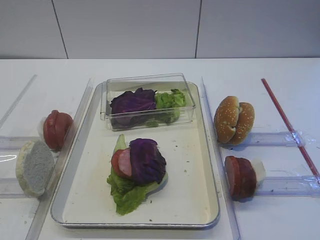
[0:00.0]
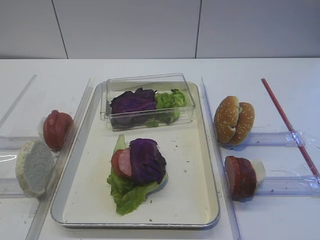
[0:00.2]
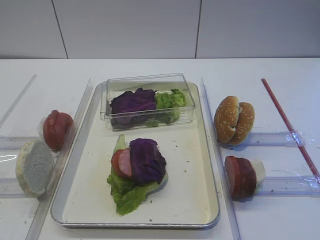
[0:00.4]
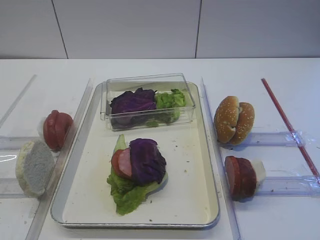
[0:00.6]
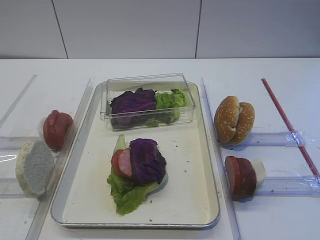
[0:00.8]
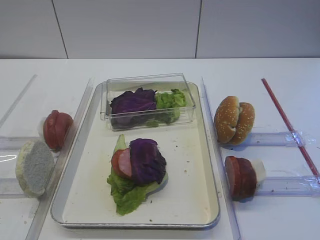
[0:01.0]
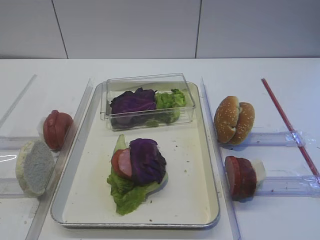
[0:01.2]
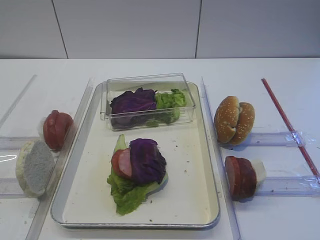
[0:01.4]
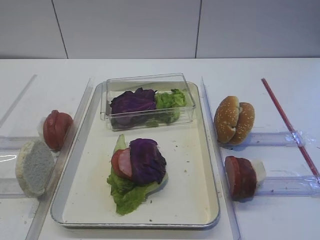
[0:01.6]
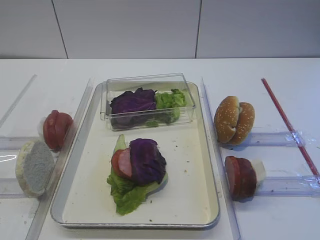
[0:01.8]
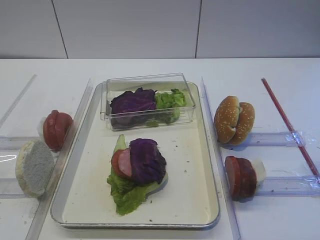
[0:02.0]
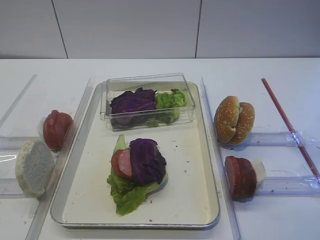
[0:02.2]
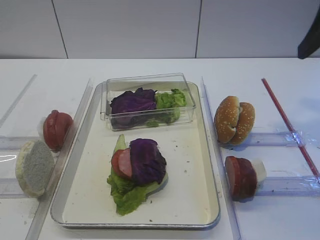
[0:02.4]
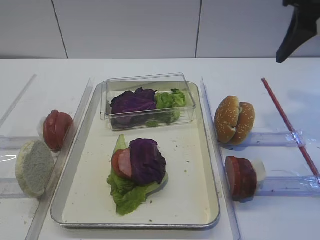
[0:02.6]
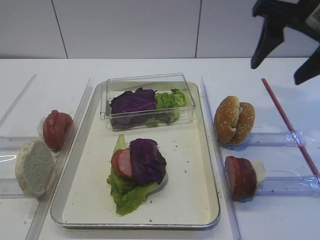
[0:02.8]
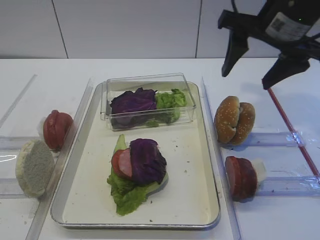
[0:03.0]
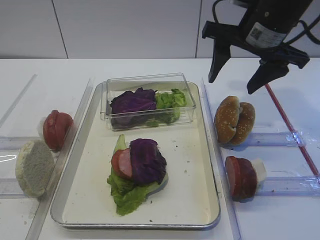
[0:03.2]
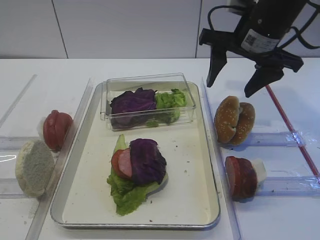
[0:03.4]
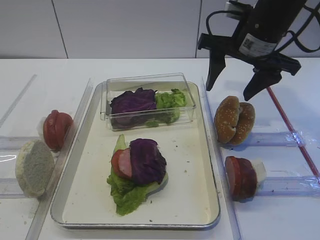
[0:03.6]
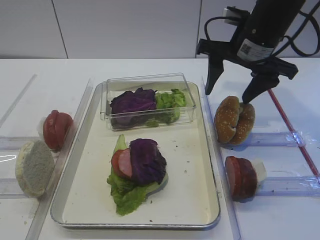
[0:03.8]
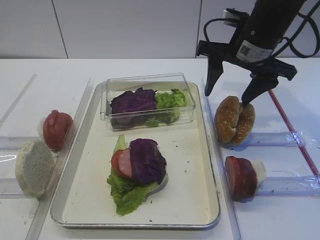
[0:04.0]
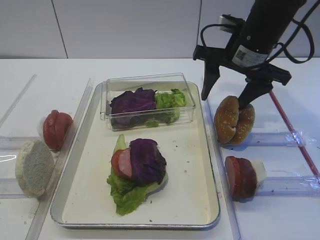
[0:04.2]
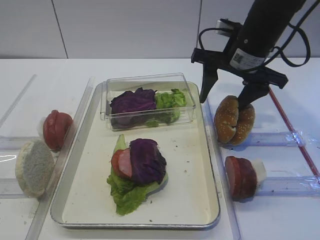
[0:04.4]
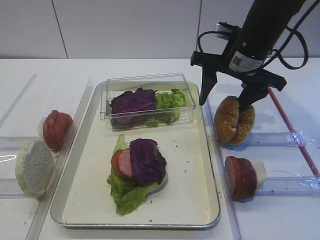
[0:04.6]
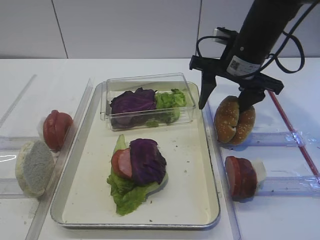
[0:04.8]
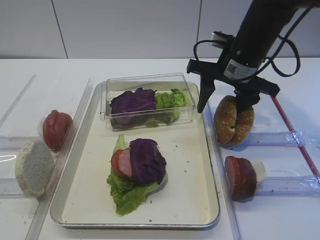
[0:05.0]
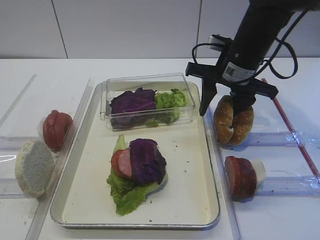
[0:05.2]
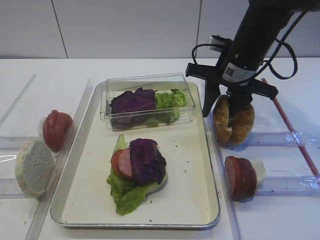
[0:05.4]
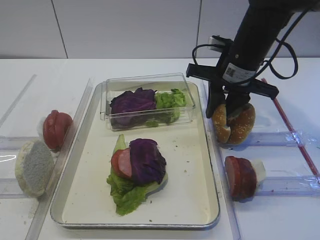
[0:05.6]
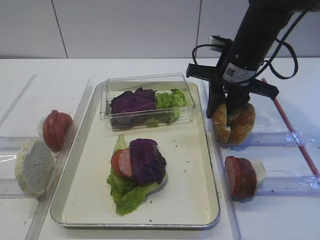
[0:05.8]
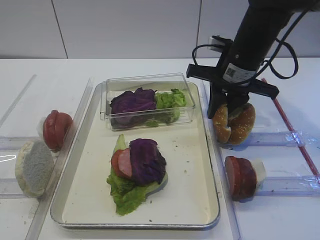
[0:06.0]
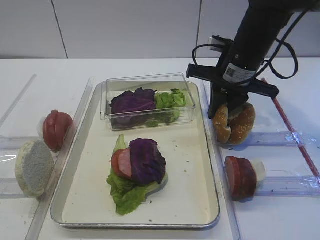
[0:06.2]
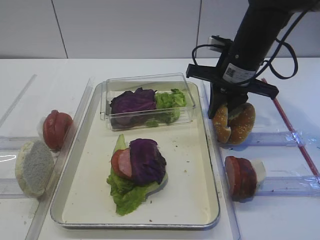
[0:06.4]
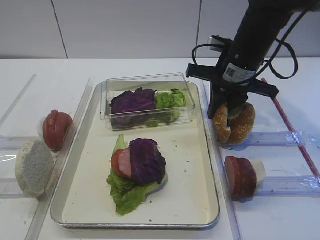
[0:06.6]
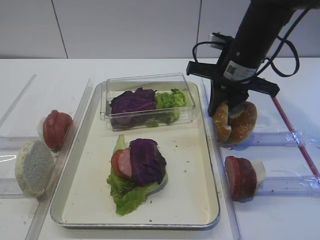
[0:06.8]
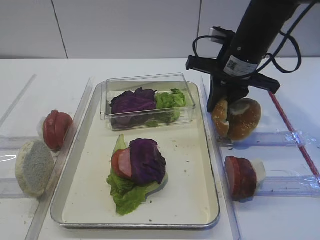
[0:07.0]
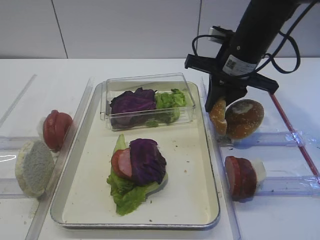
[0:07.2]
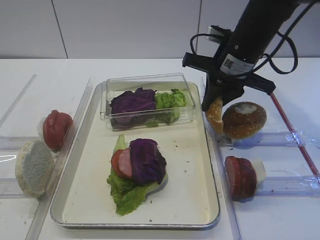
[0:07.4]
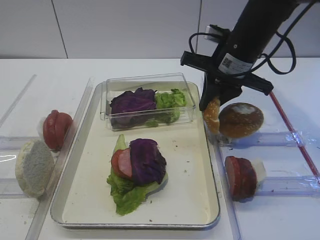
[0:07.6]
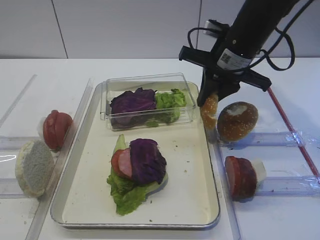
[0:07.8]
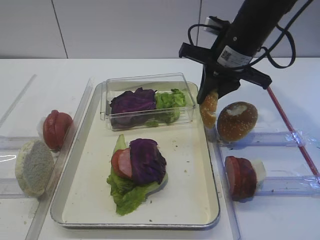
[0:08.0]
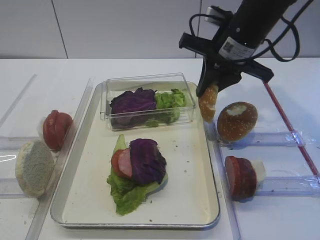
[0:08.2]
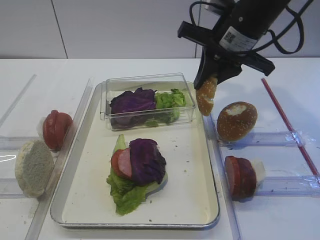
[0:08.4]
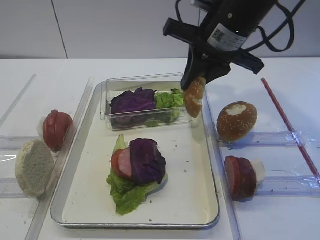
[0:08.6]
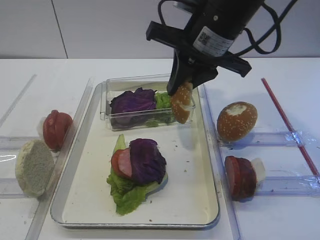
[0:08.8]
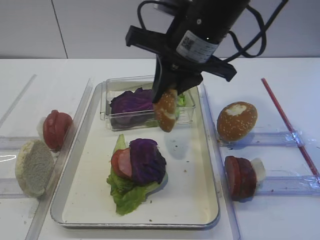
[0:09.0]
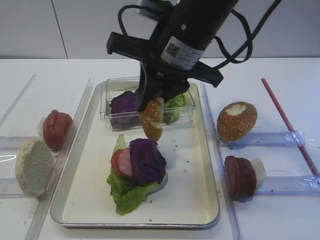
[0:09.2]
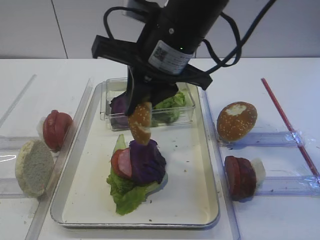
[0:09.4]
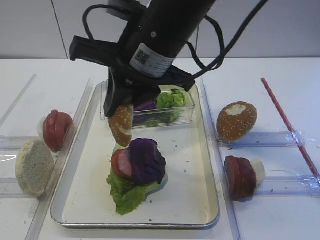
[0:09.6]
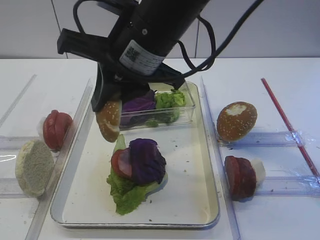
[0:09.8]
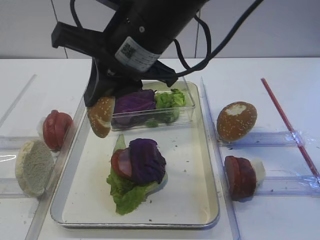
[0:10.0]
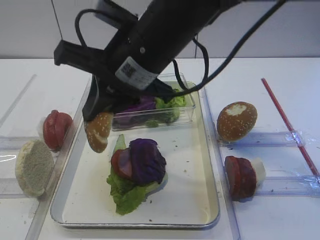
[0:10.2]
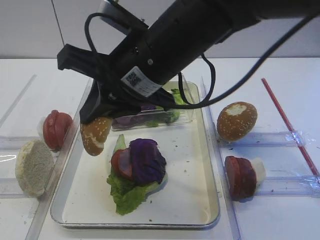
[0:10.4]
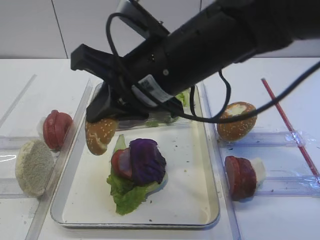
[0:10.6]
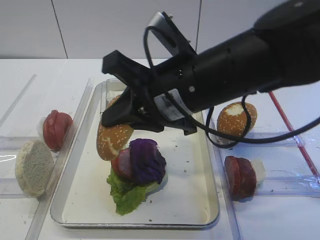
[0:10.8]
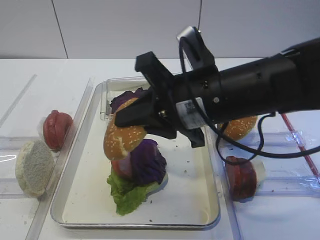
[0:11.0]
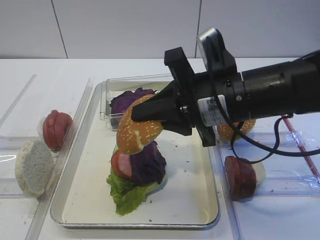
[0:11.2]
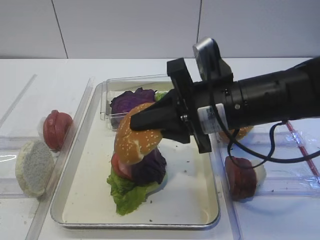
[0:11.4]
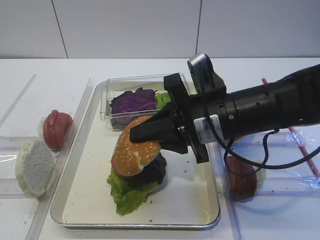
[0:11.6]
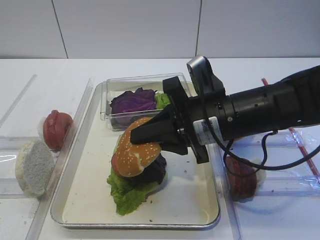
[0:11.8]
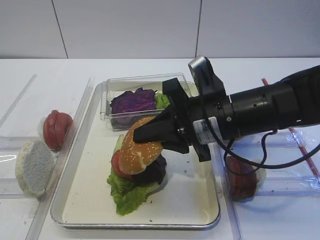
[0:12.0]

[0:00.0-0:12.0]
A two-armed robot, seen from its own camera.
Step, 0:00.0 to 0:07.8: Pick up the hamburger lid with the right gripper.
0:01.6 to 0:03.0: The right gripper travels forward by approximately 25 cm.
0:03.0 to 0:04.4: The right gripper shifts about 5 cm downward.
0:04.4 to 0:06.0: The right gripper closes.
0:06.0 to 0:07.6: The grippers move only a little.
0:07.6 to 0:09.0: The right gripper travels to the left, upward and backward by some 10 cm.
0:09.0 to 0:10.4: The right gripper moves to the left and backward, about 10 cm.
0:10.4 to 0:12.0: The right gripper moves downward and to the right, roughly 15 cm.

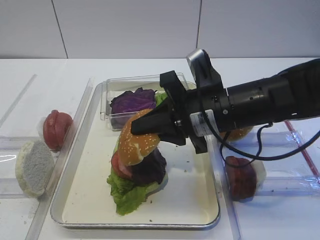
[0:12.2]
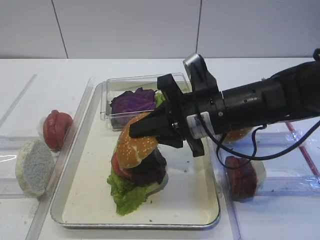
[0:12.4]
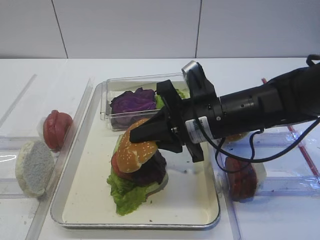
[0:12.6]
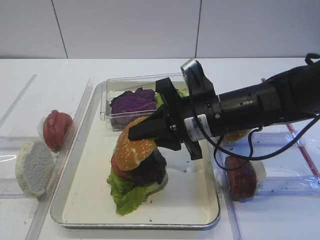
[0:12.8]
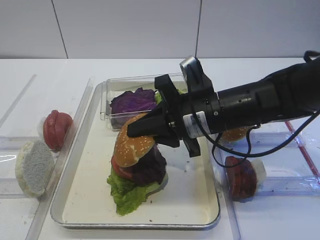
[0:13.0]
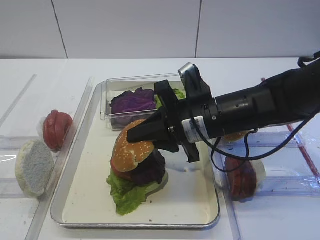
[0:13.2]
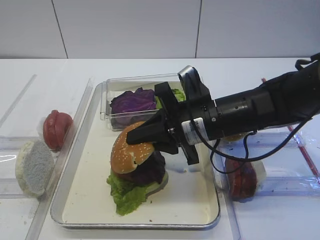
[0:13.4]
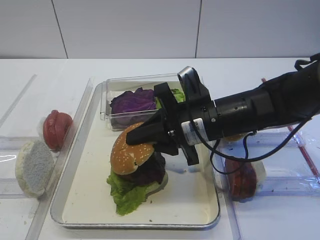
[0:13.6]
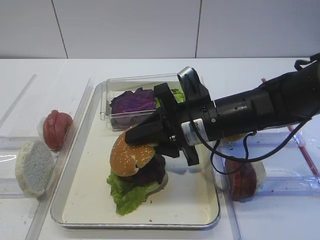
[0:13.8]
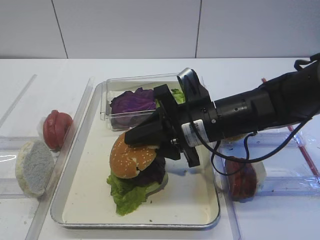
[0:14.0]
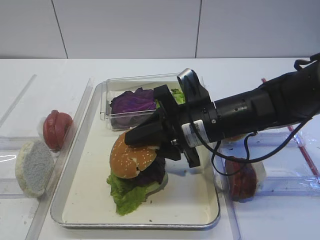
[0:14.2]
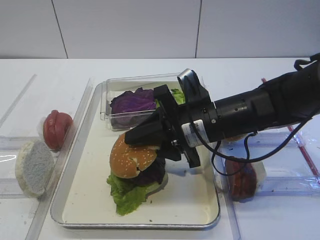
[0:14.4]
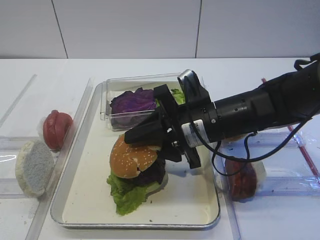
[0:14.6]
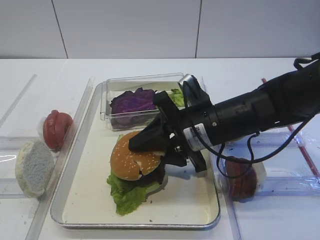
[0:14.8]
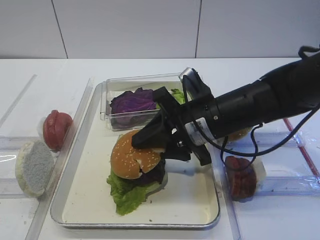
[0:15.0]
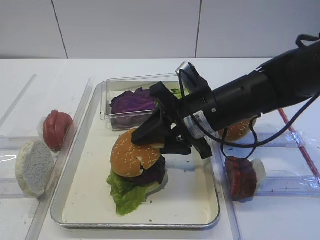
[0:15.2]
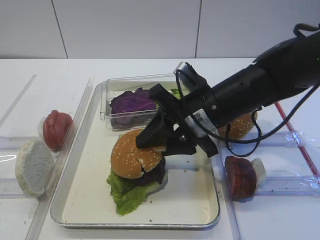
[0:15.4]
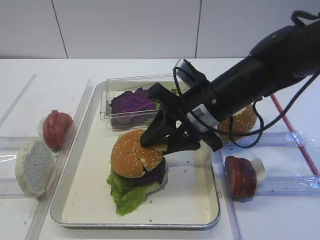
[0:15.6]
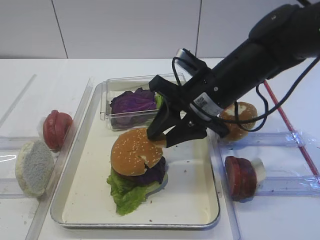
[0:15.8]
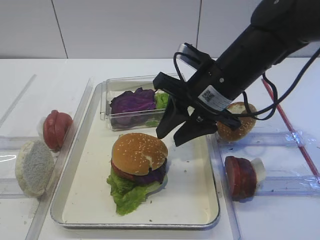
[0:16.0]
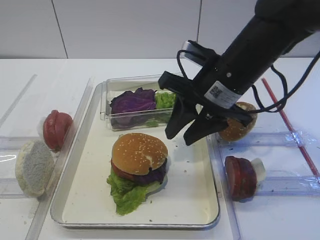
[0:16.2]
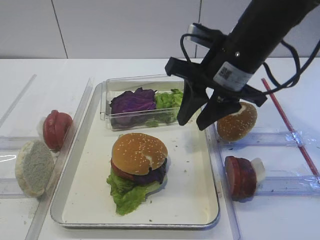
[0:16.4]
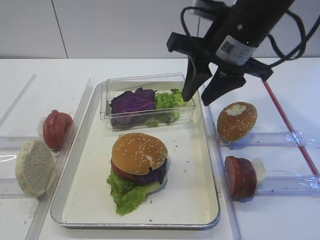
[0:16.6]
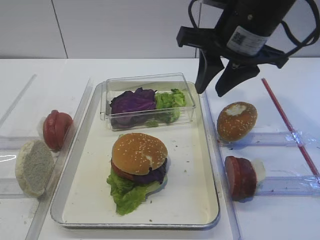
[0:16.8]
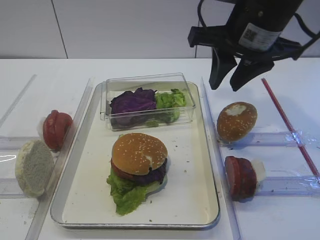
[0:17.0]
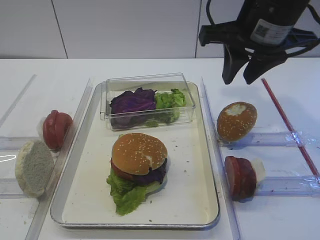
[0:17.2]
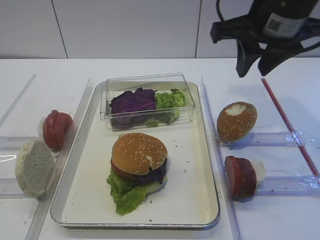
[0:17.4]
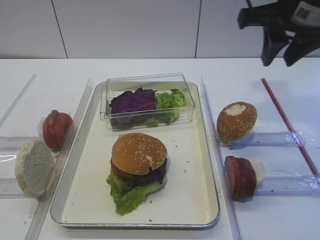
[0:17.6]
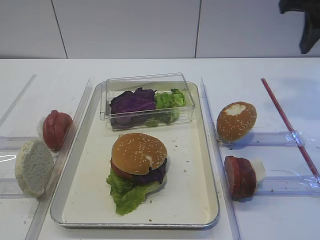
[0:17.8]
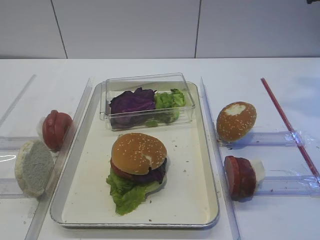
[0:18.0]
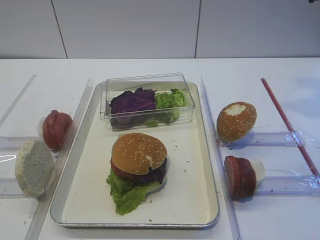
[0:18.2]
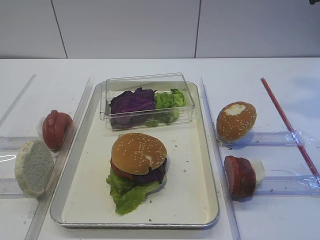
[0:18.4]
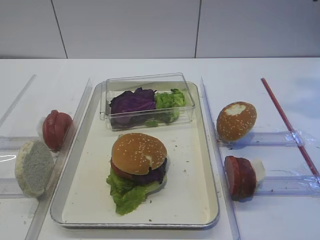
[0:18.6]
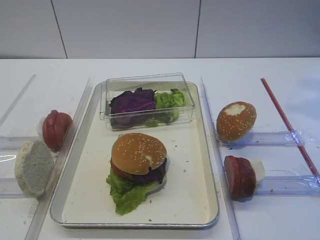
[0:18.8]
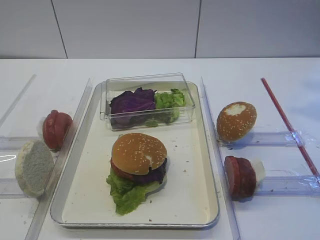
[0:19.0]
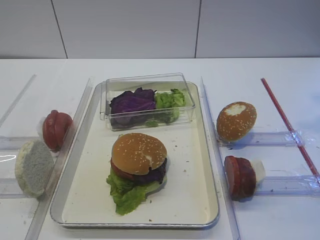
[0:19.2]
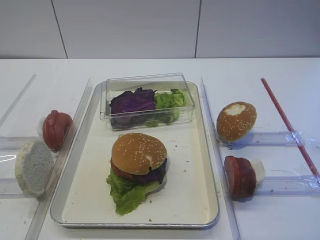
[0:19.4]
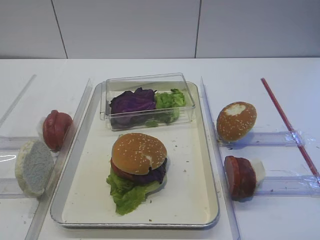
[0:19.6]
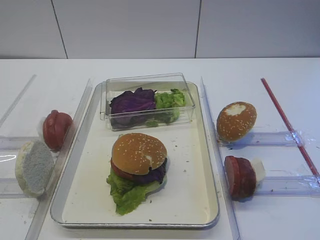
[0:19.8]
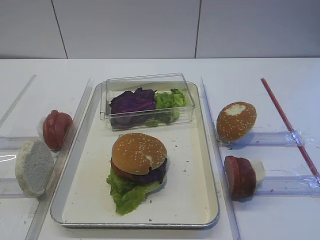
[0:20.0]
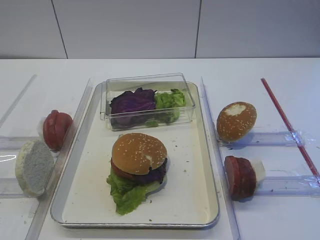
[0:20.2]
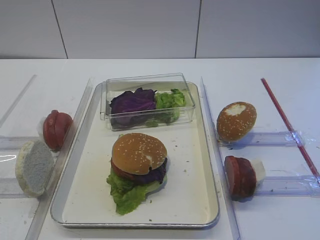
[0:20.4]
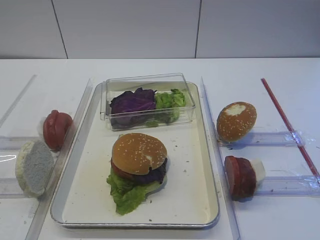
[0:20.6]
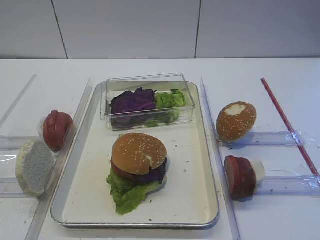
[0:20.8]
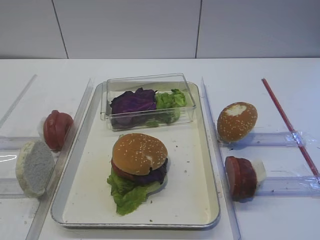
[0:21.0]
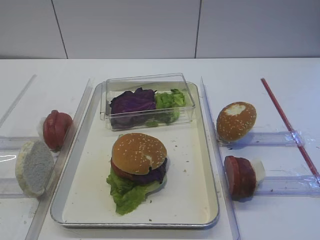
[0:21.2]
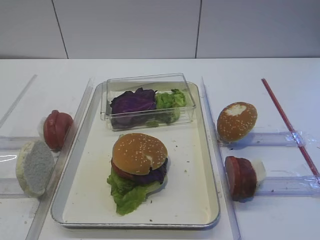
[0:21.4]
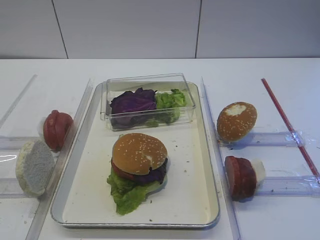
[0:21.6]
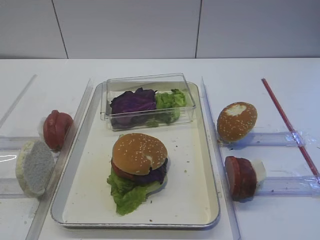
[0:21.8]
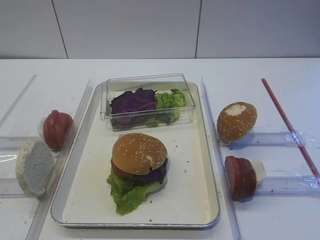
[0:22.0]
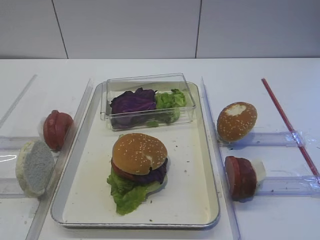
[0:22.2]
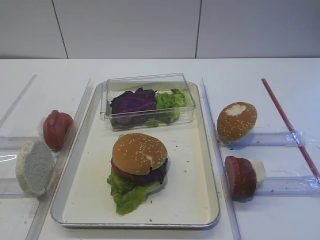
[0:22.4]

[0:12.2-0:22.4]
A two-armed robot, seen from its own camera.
Step, 0:12.2 to 0:15.8: Place the hamburger lid on the purple cabbage with the right gripper.
0:12.2 to 0:15.2: The grippers move only a little.
0:15.2 to 0:16.6: The right gripper moves upward, about 10 cm.
0:16.6 to 0:18.0: The right gripper goes approximately 15 cm to the right and upward.
